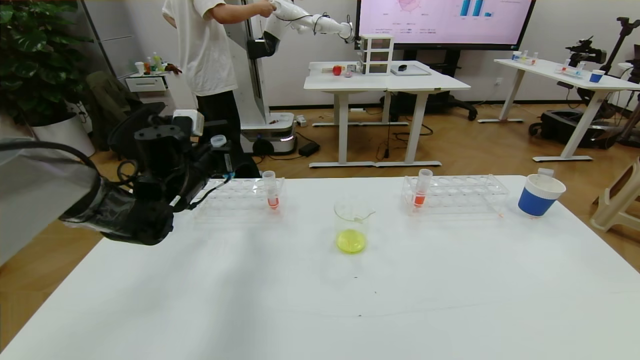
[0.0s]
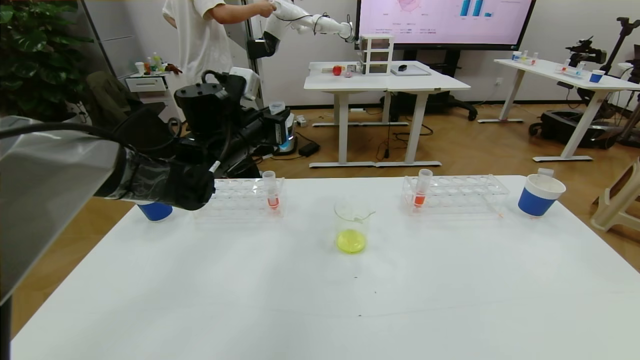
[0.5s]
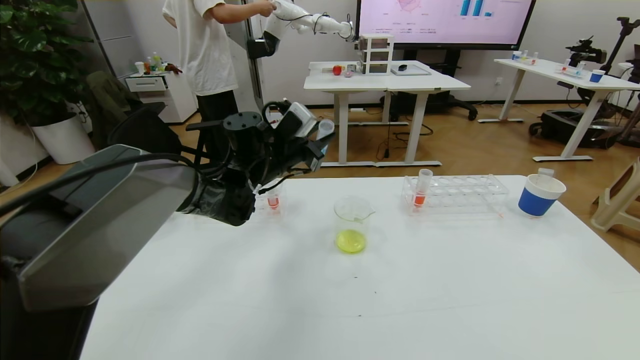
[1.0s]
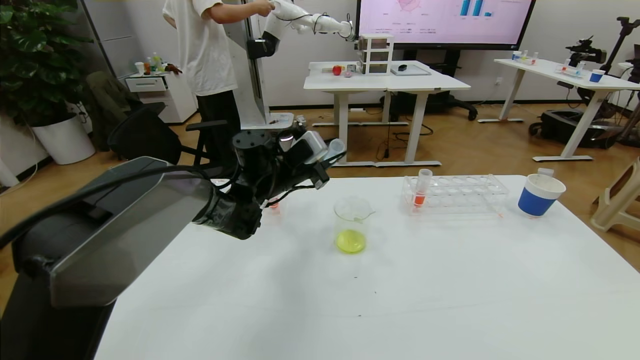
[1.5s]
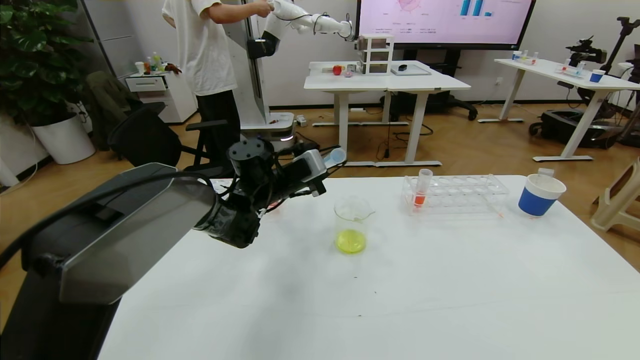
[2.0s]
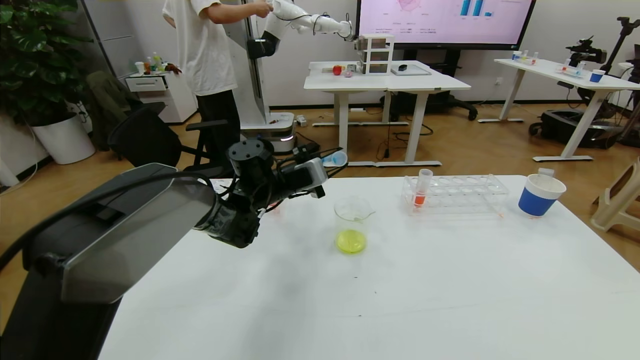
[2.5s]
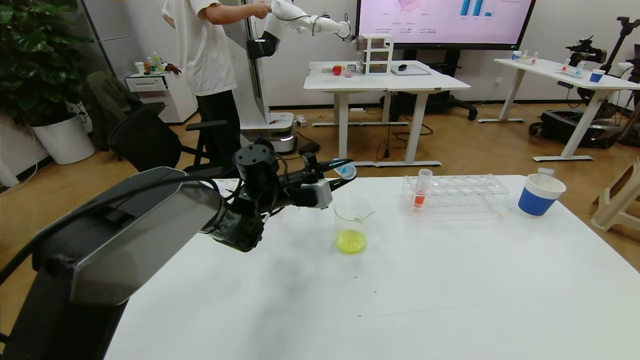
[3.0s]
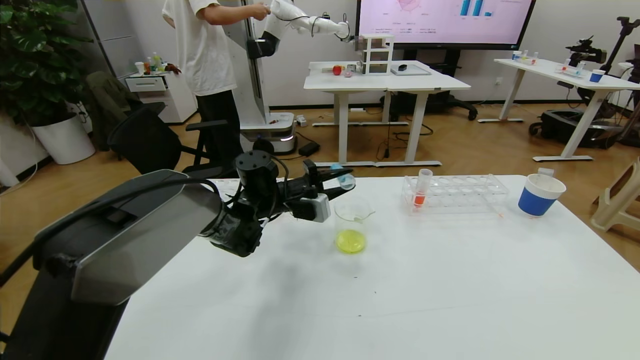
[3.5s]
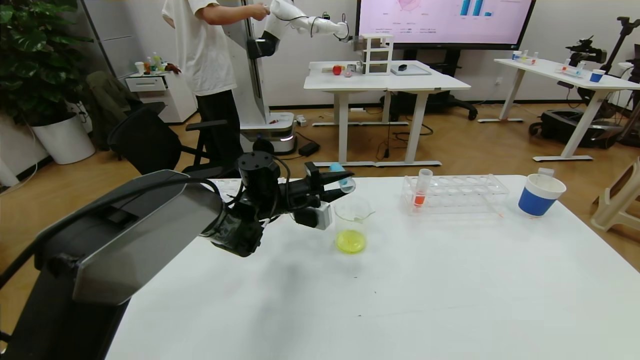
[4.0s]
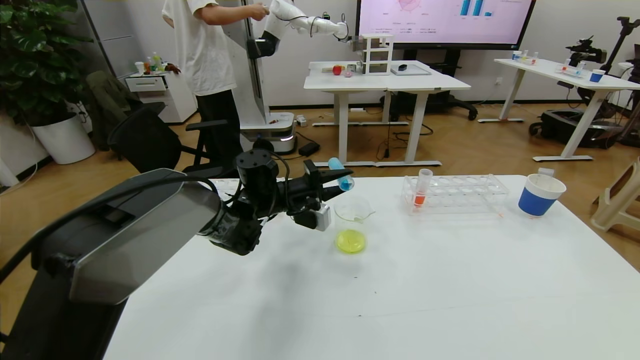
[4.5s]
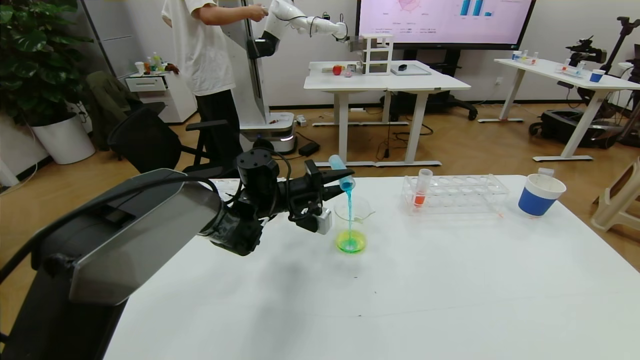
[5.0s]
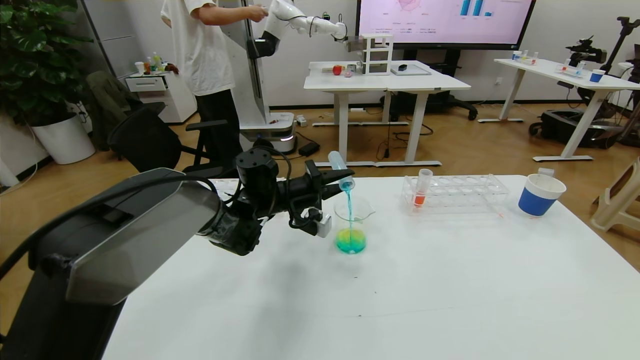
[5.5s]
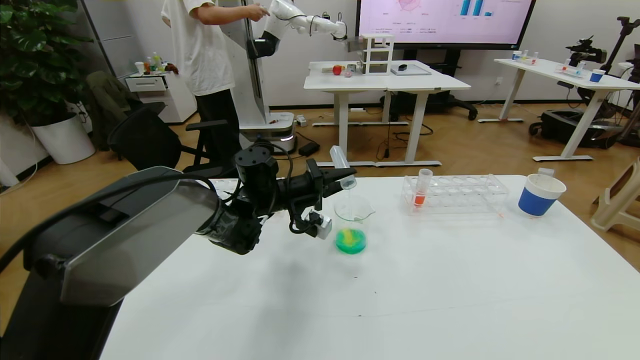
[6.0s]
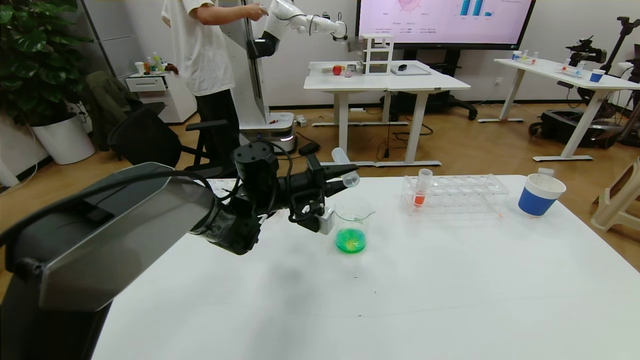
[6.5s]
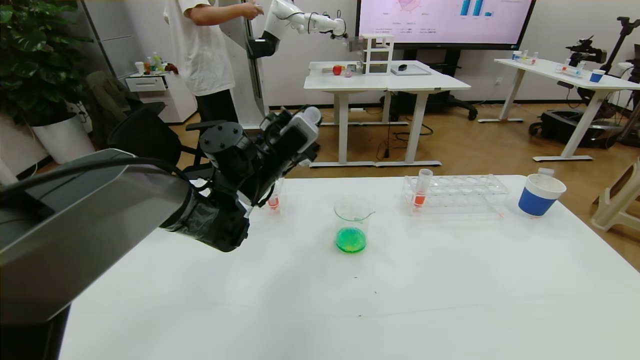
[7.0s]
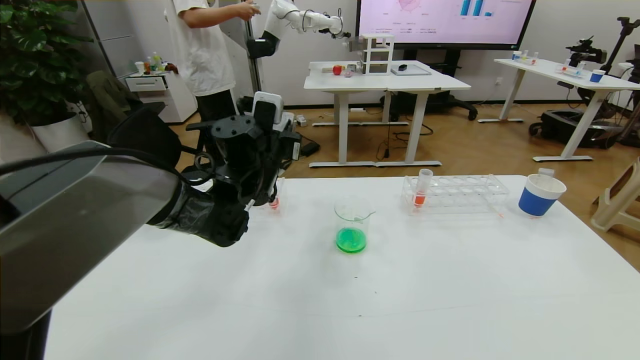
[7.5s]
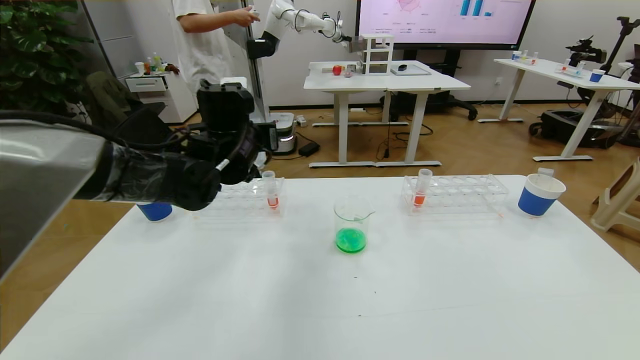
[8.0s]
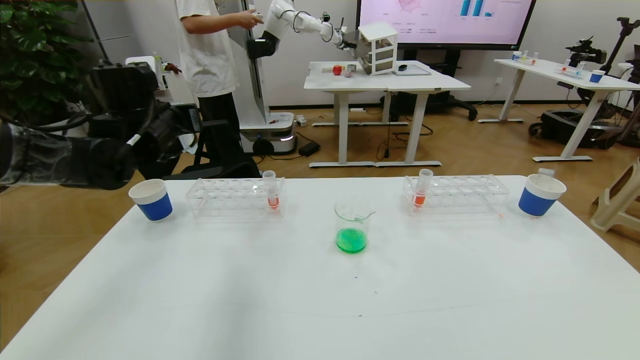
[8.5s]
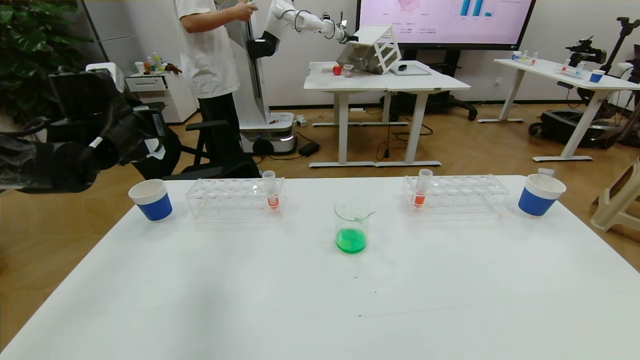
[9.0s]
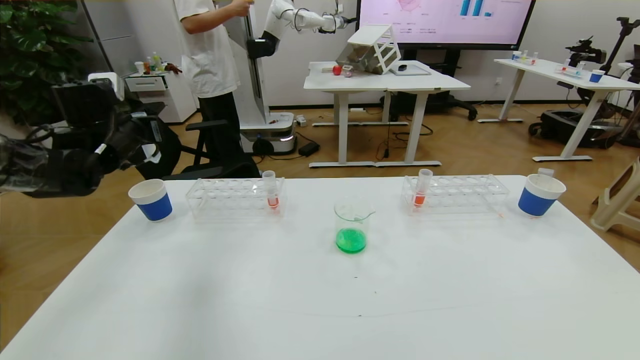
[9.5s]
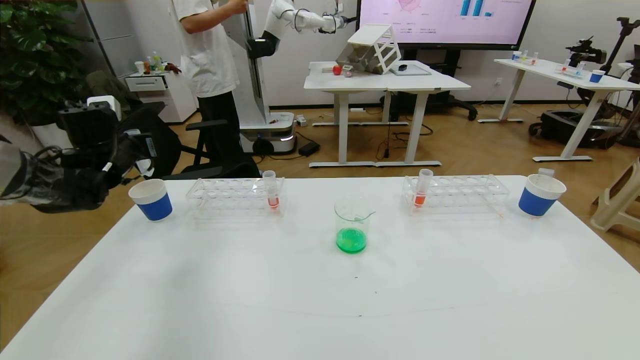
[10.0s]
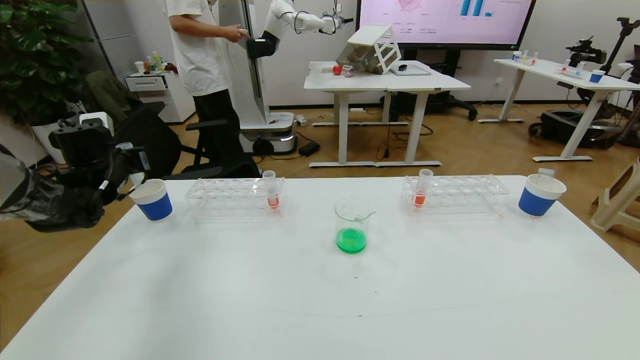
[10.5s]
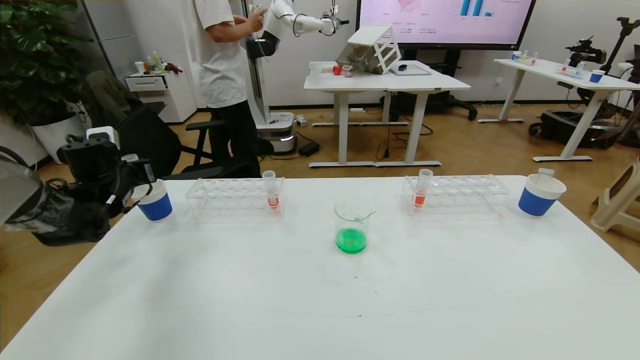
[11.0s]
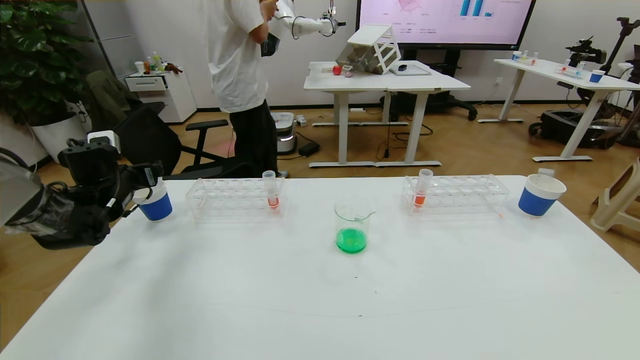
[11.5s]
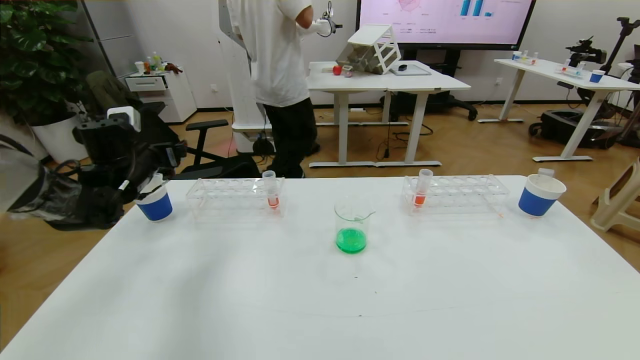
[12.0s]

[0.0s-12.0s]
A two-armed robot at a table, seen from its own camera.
Task of the whole recording: pick up the test tube with yellow pigment and the test tube with blue pigment by grippers and pour them into the beaker.
0.0s to 2.0s: The left gripper is displaced to the right by some 15 cm.
6.0s to 8.0s: The left gripper heads upward and to the left, covering about 10 cm.
8.0s to 10.0s: The left gripper shifts some 25 cm to the left.
10.0s to 12.0s: The left gripper opens up.

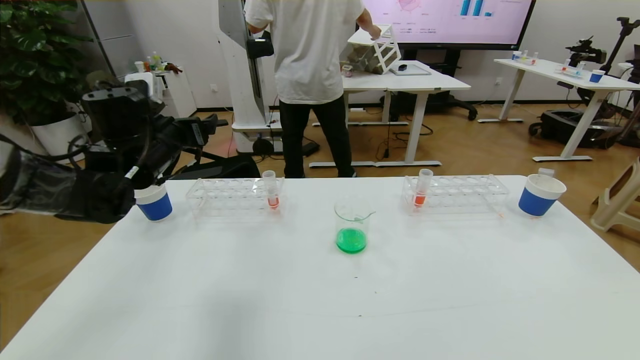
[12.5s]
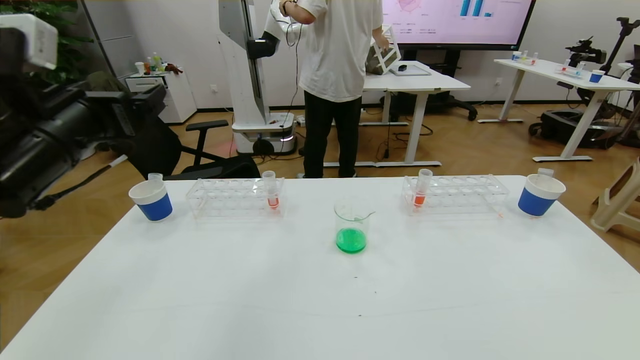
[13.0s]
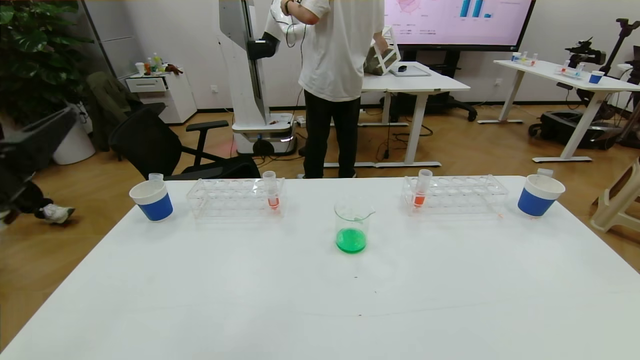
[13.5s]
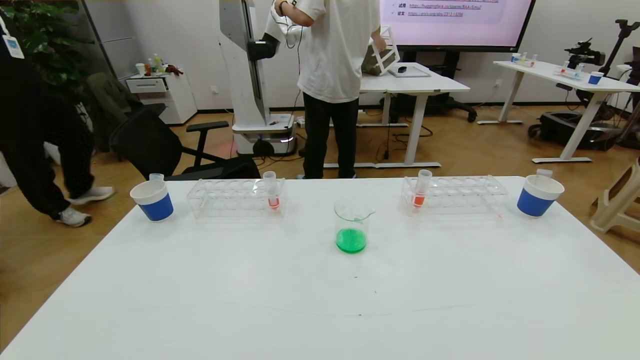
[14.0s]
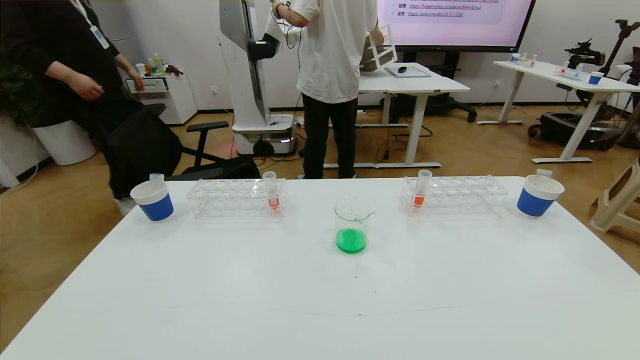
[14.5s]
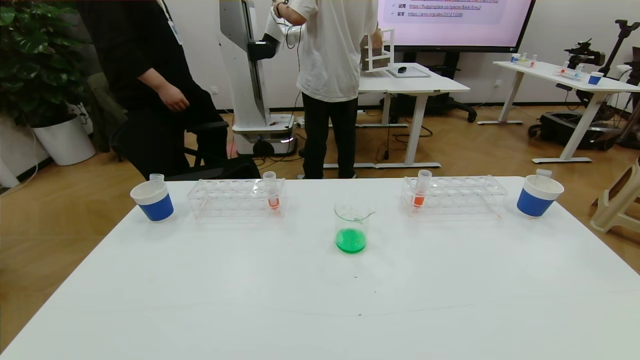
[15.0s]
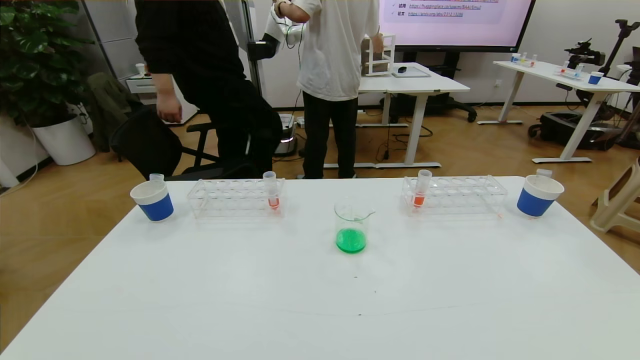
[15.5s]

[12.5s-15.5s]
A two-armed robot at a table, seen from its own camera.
Task of the whole recording: pick up the test tube with yellow pigment and the test tube with blue pigment by grippers and pour them into the beaker.
12.5s to 14.0s: The left gripper shifts some 40 cm backward.
14.0s to 15.5s: The left gripper shifts roughly 15 cm downward.
